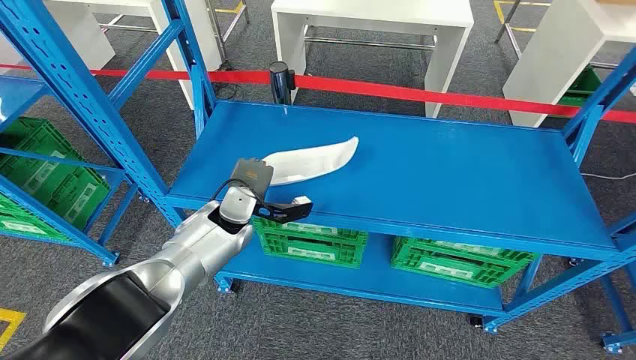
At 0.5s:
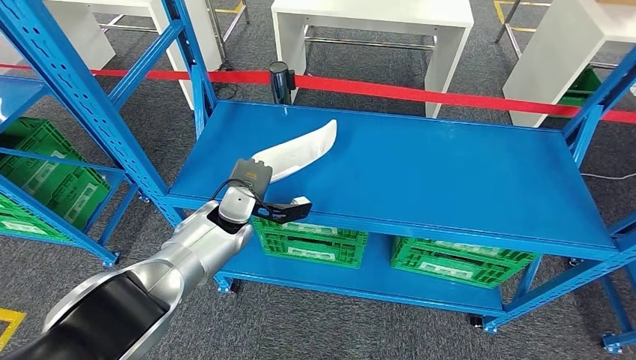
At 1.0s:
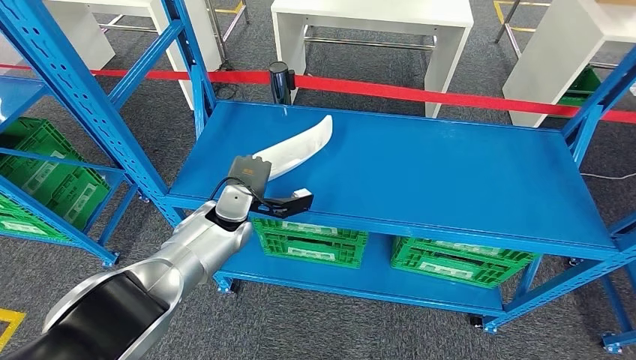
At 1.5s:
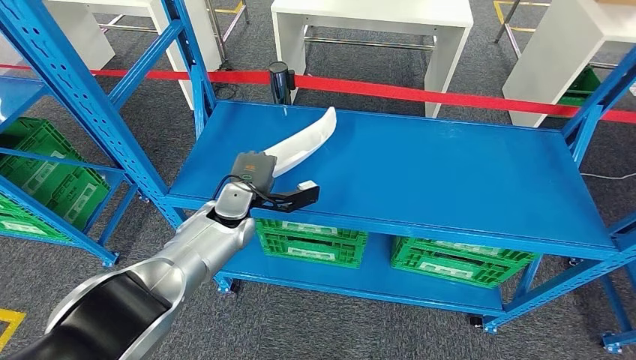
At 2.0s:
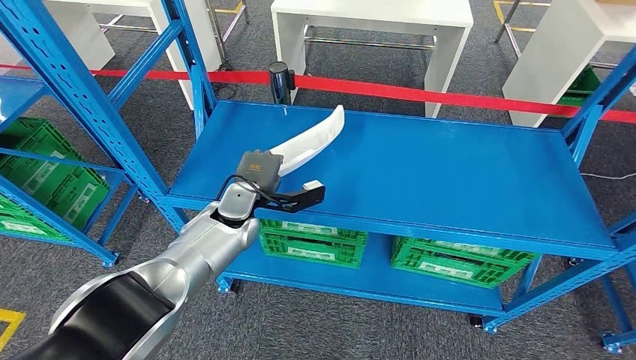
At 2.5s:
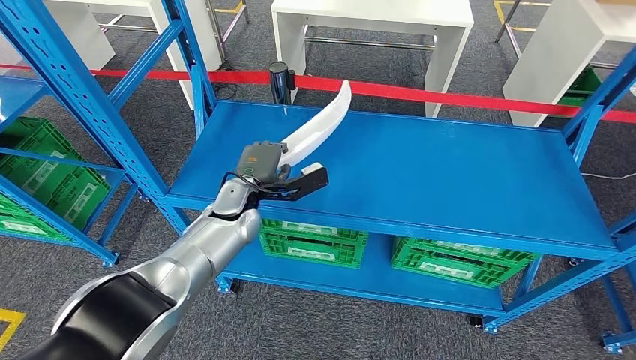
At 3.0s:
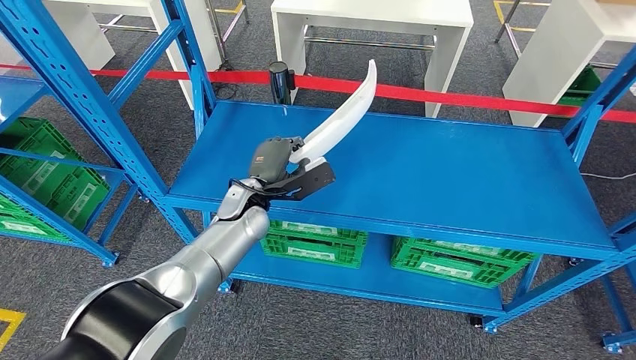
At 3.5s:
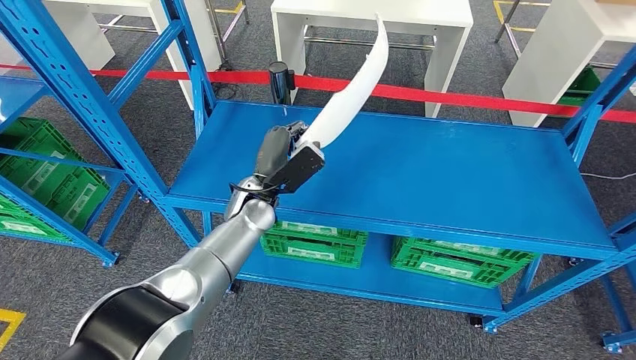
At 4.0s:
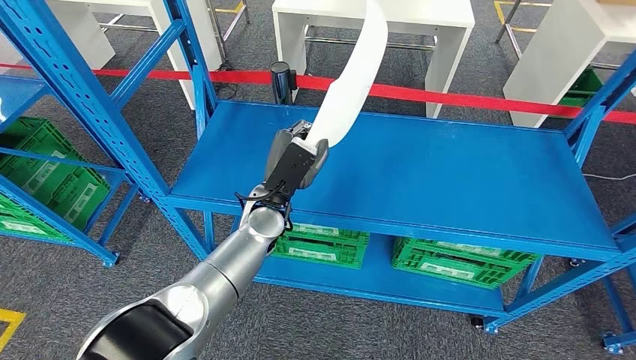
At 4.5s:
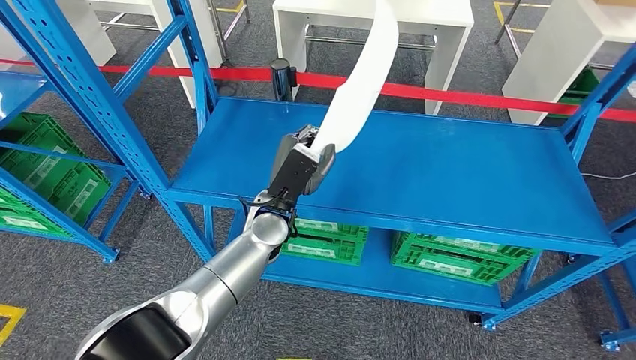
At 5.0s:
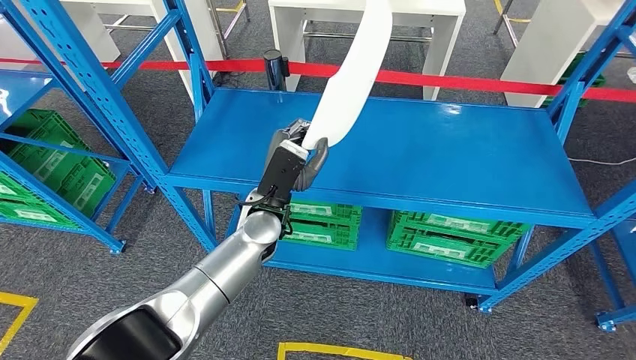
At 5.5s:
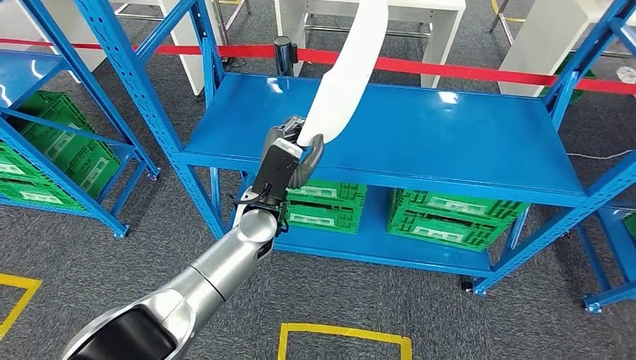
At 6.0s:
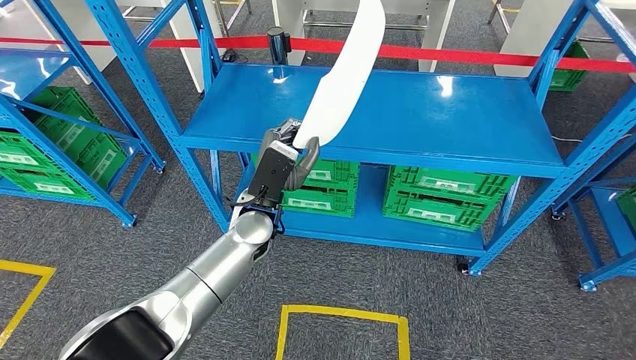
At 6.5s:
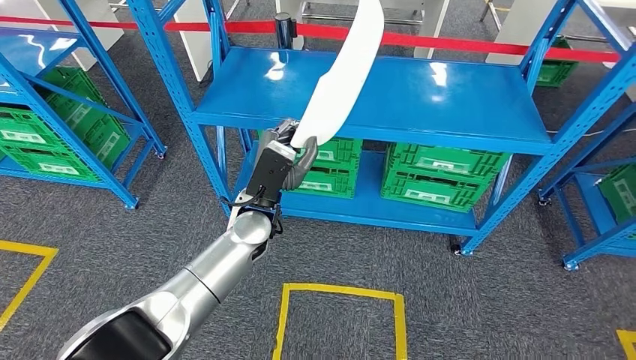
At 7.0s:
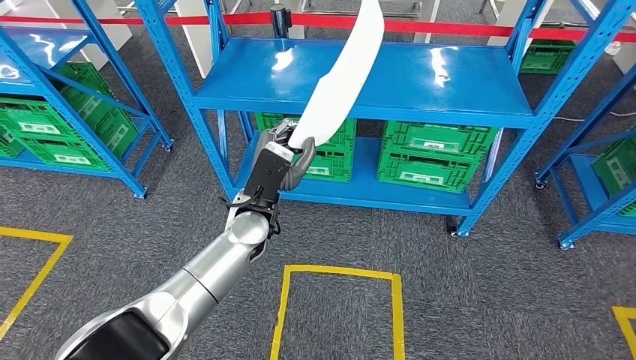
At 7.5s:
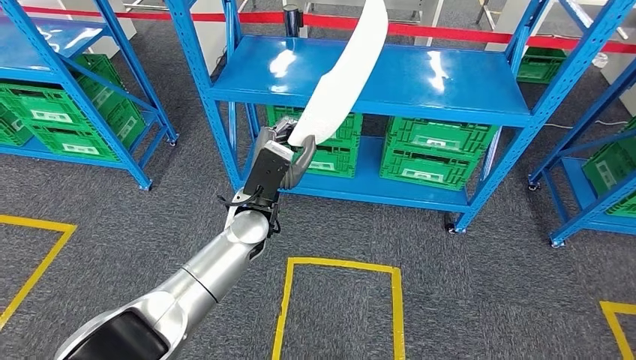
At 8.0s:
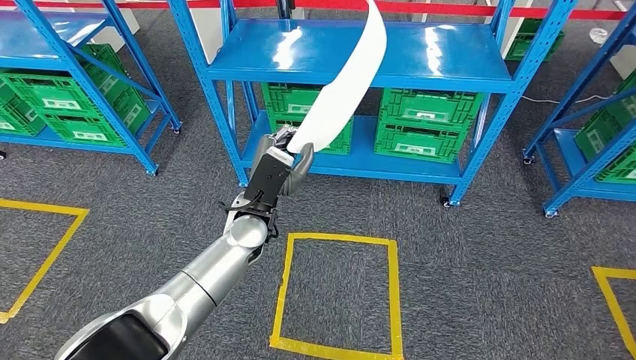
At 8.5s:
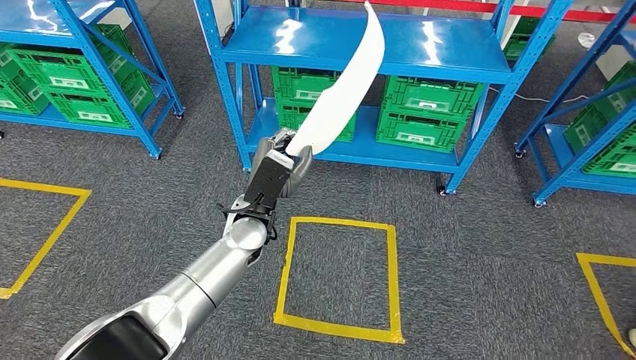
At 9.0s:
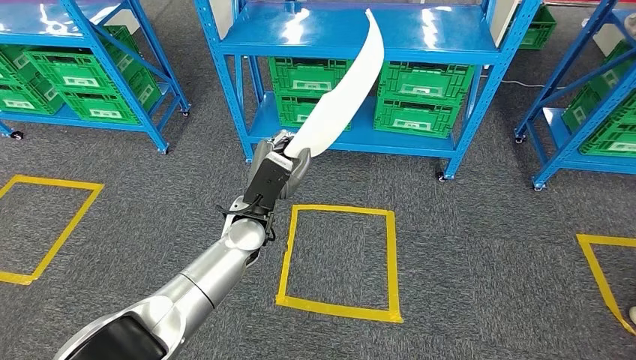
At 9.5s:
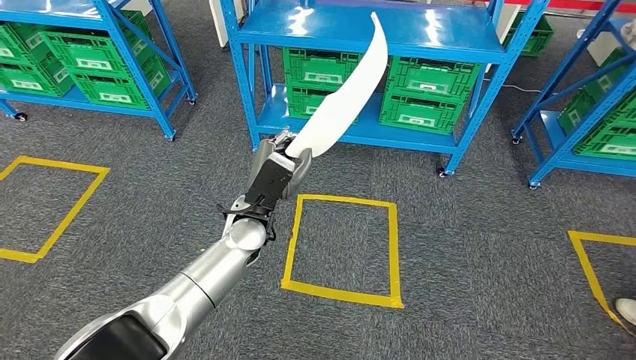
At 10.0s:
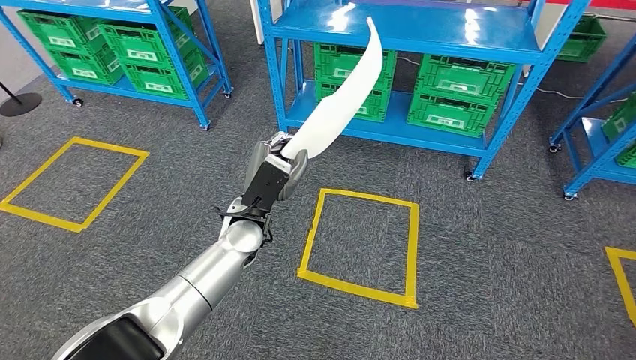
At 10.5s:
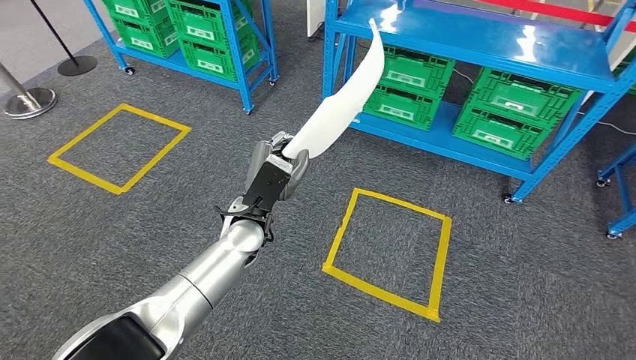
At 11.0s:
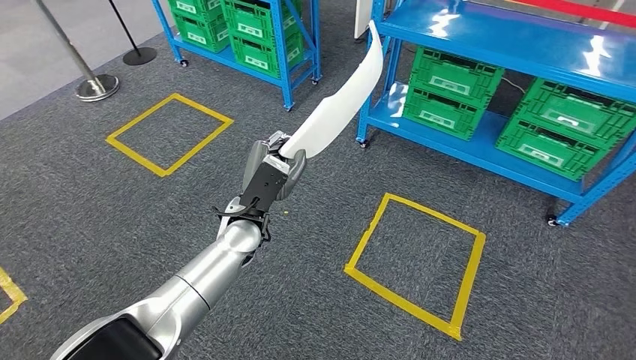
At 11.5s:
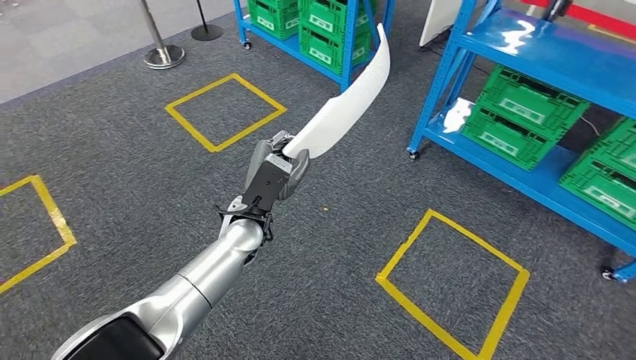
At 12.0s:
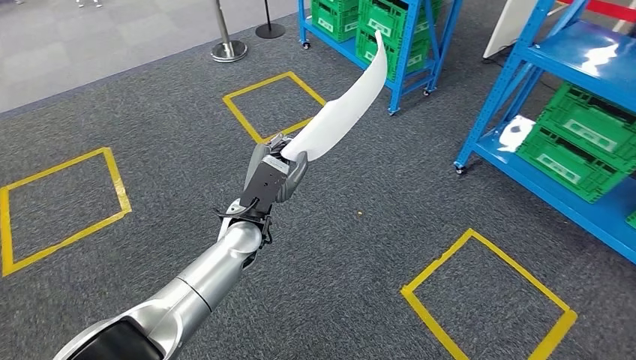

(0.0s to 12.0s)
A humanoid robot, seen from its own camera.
Step, 0.0s - 2.5s: Pick up the small parts from the shelf.
2.0s - 4.0s: The left hand shifts approximately 5 cm to the right.

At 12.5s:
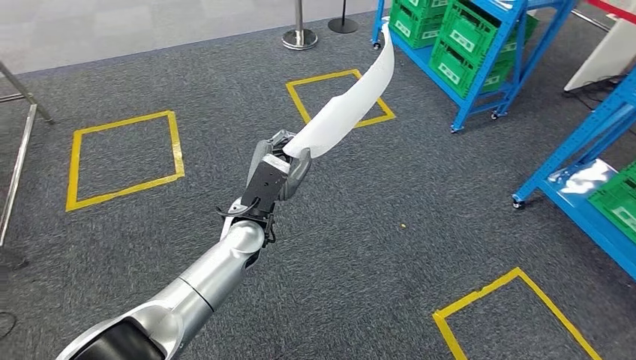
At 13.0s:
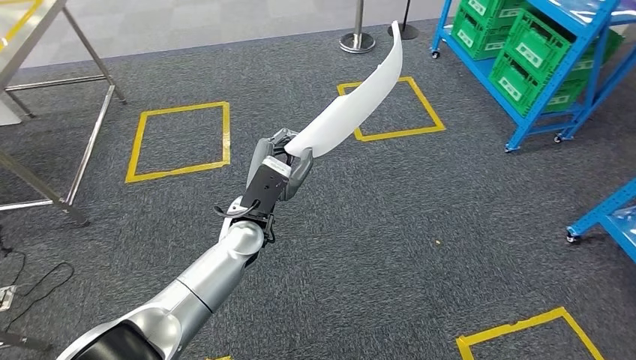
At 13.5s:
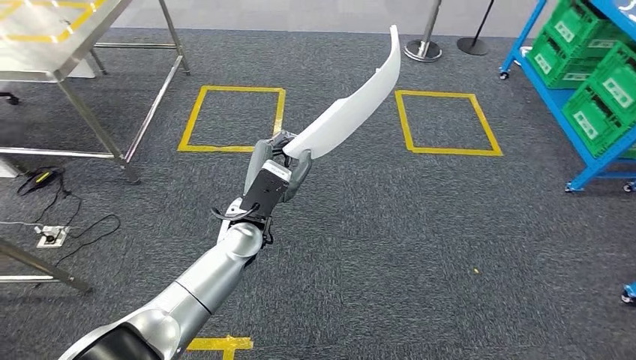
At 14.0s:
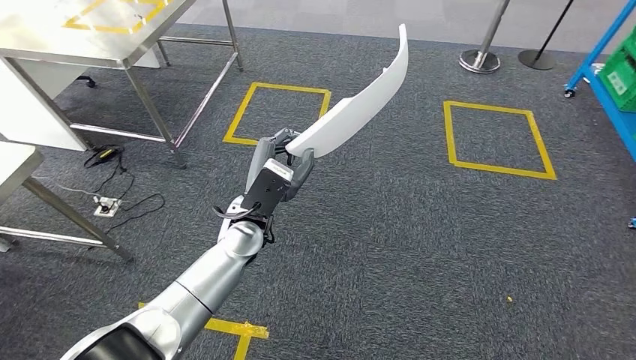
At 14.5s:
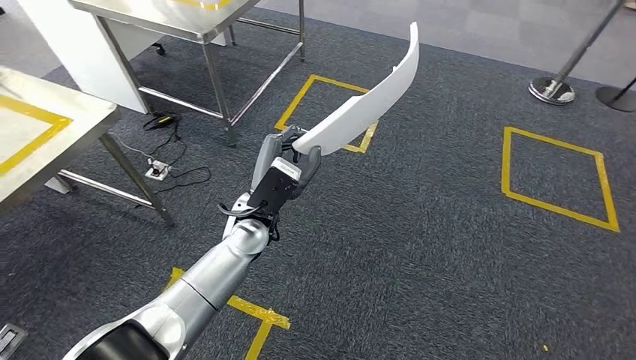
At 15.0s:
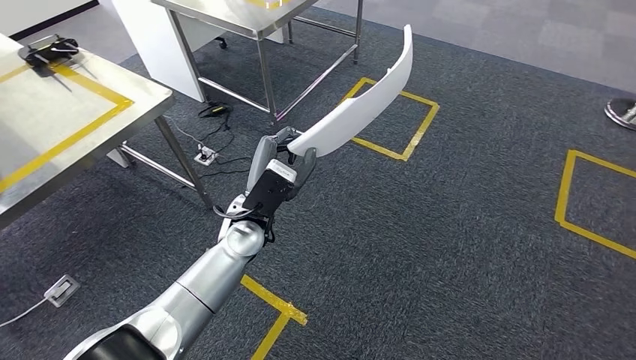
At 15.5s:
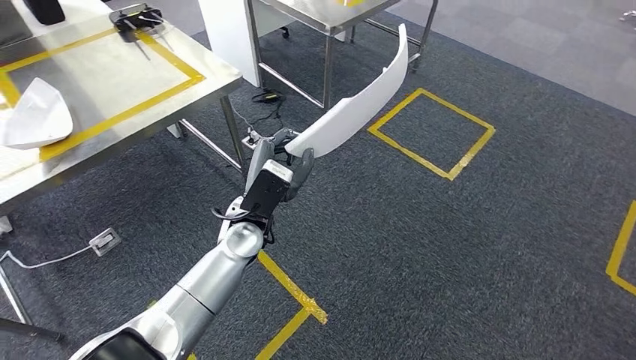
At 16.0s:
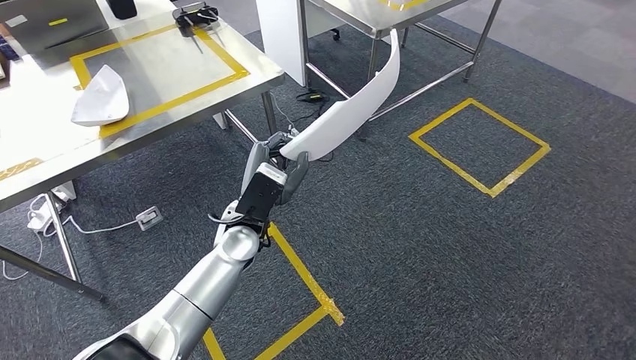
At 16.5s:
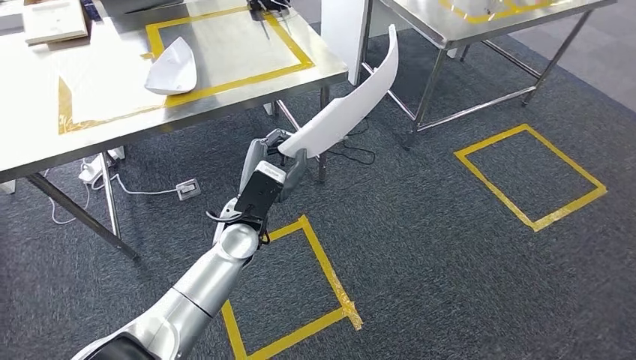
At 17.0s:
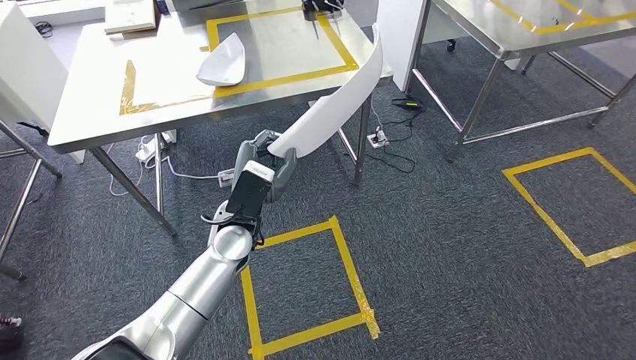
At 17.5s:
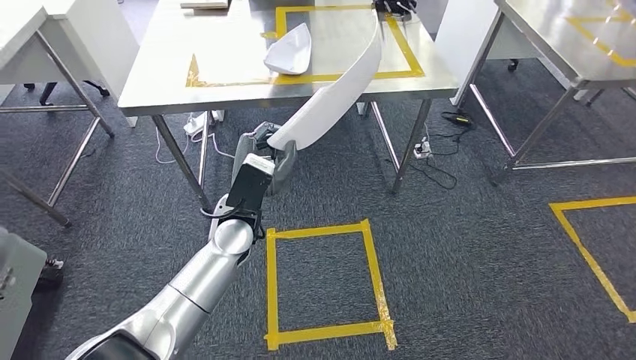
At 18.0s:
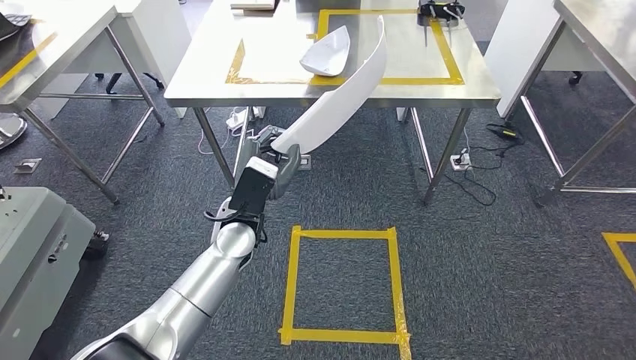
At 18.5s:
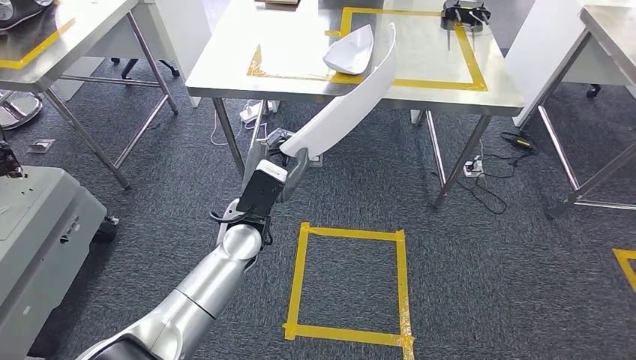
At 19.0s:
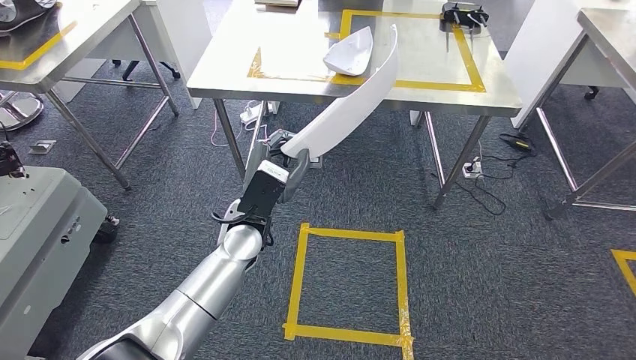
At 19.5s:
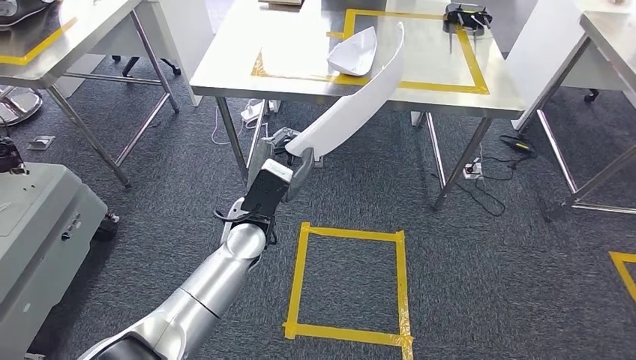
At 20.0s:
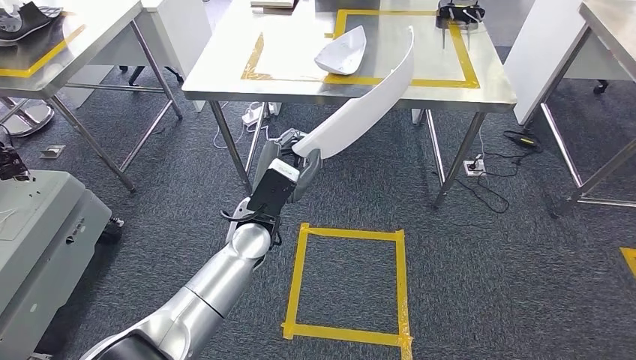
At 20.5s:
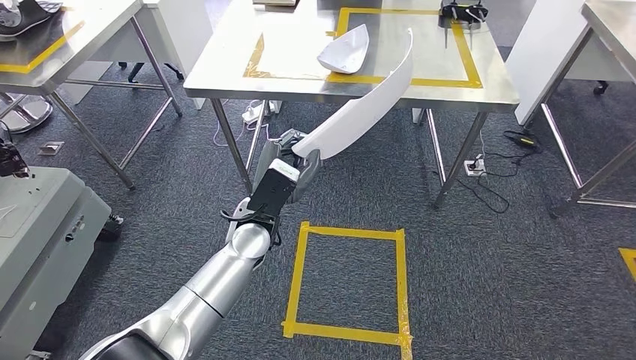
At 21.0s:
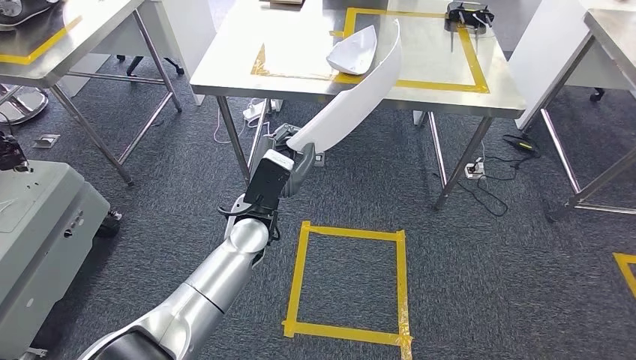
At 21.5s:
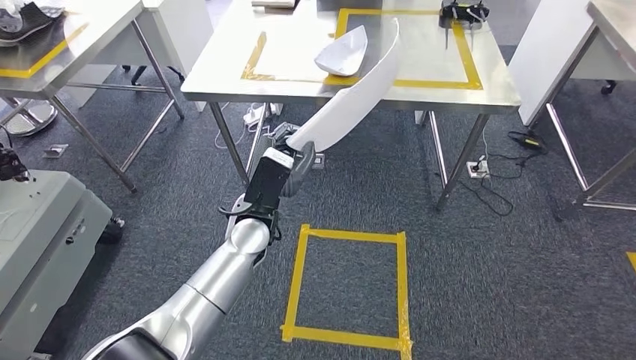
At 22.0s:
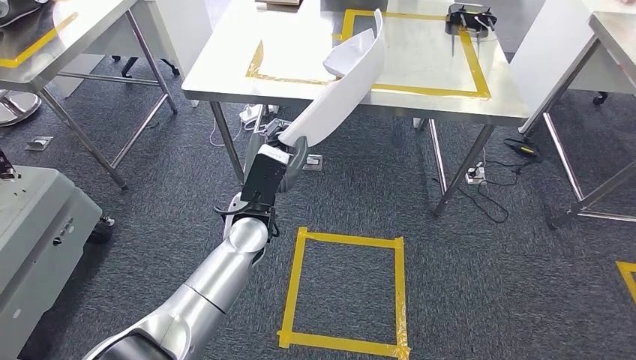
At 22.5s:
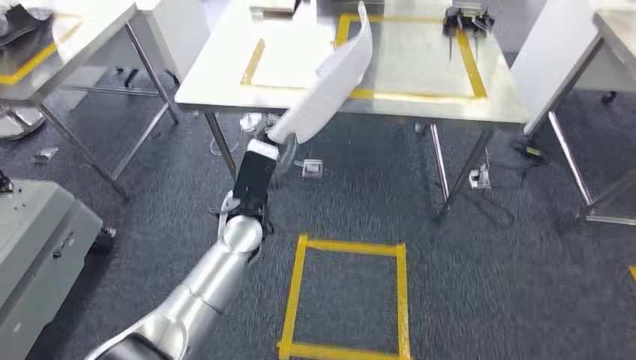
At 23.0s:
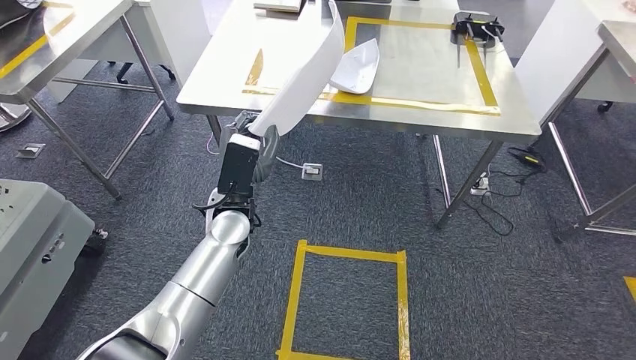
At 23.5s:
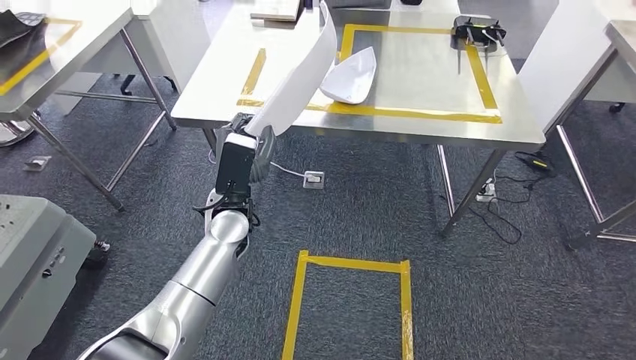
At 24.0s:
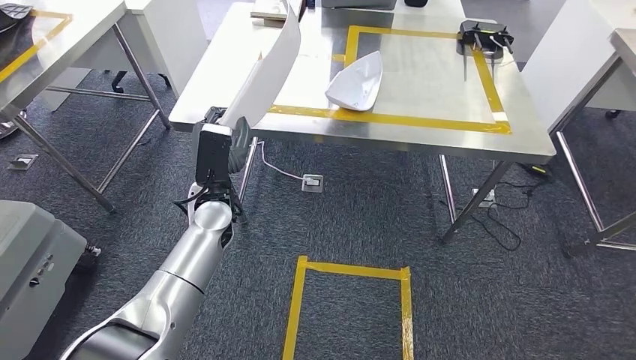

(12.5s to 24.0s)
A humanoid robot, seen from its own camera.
Step, 12.5s - 18.5s: Move the small parts to the workbench.
